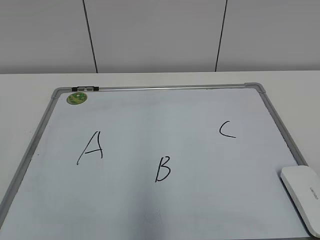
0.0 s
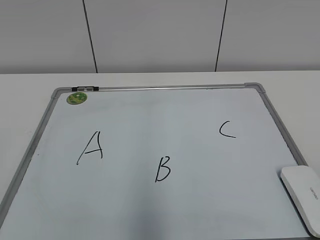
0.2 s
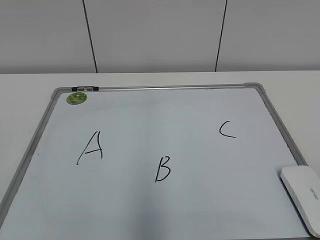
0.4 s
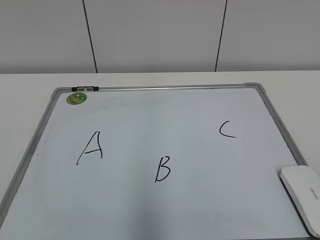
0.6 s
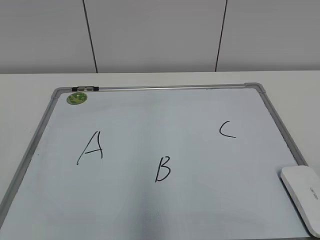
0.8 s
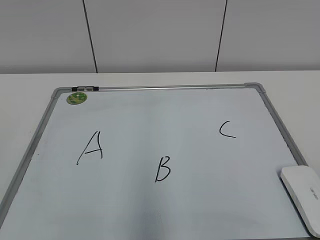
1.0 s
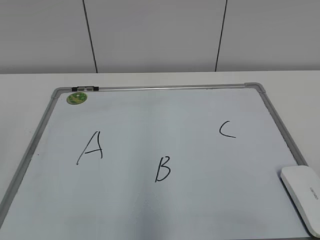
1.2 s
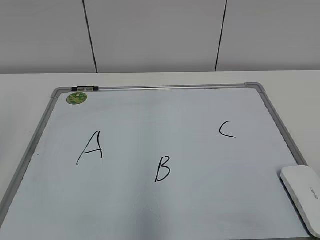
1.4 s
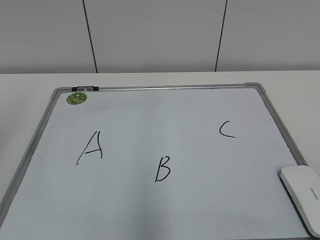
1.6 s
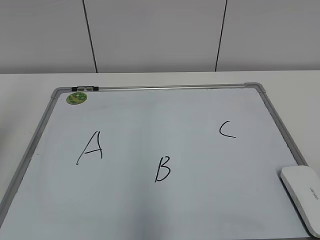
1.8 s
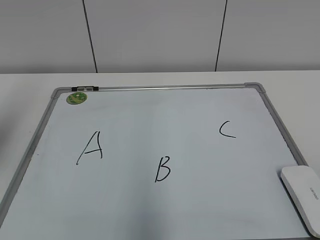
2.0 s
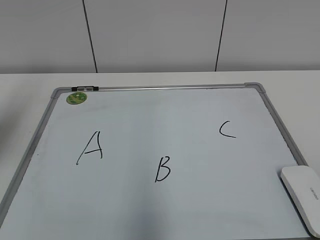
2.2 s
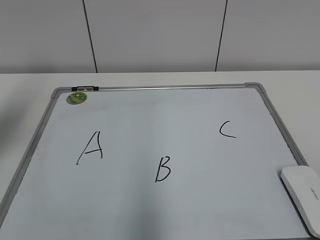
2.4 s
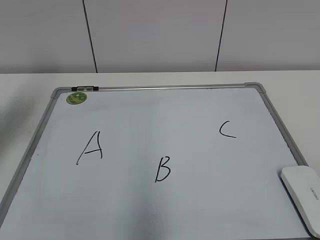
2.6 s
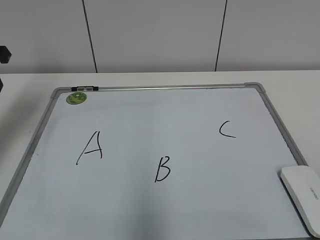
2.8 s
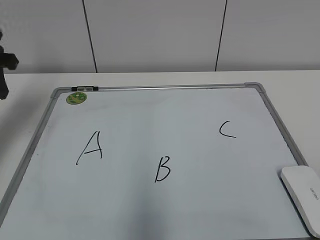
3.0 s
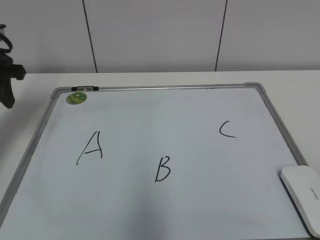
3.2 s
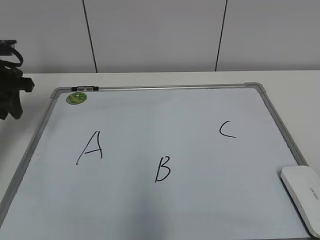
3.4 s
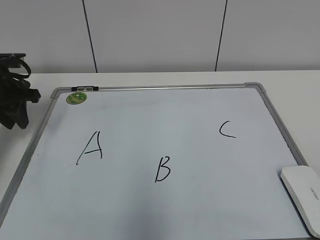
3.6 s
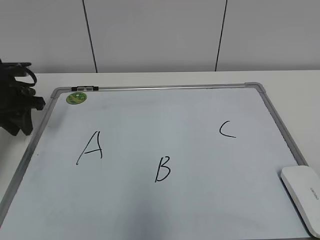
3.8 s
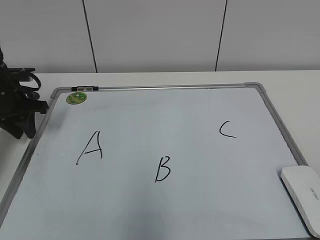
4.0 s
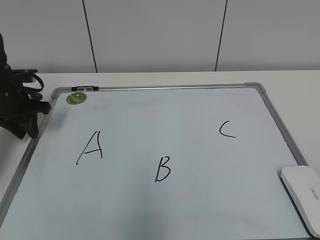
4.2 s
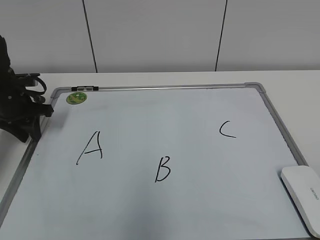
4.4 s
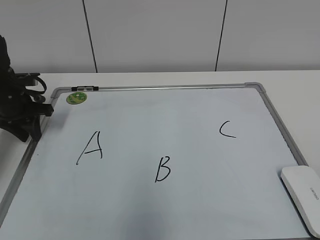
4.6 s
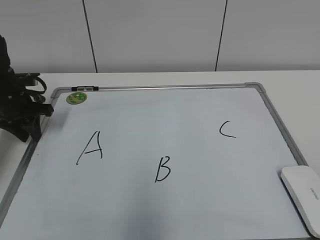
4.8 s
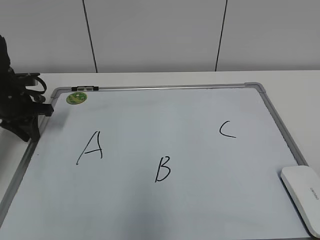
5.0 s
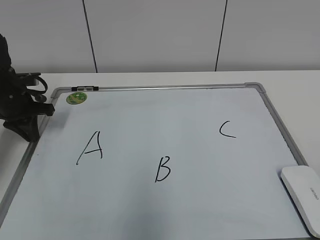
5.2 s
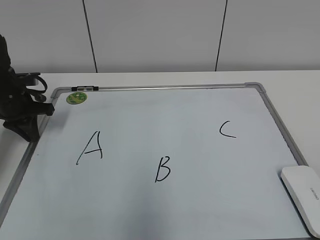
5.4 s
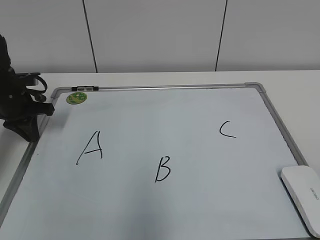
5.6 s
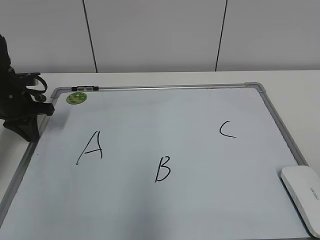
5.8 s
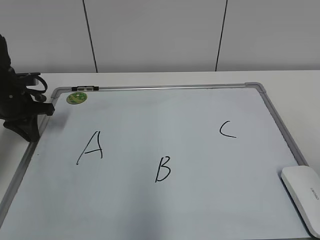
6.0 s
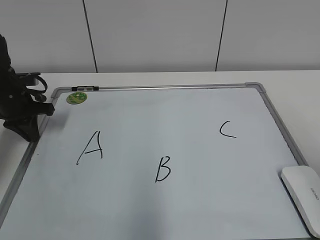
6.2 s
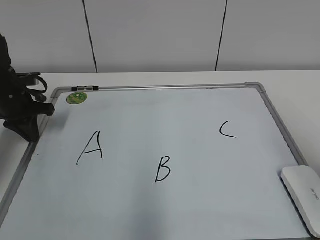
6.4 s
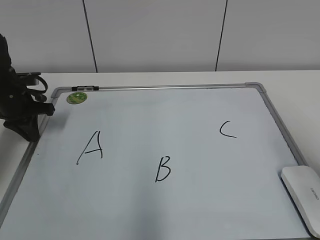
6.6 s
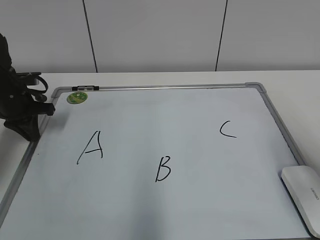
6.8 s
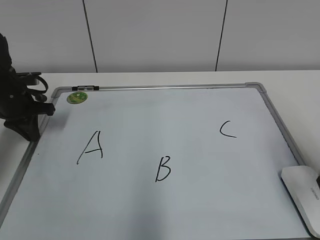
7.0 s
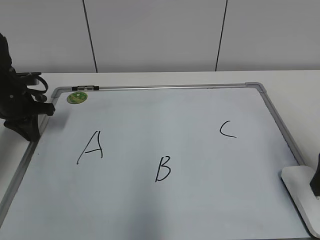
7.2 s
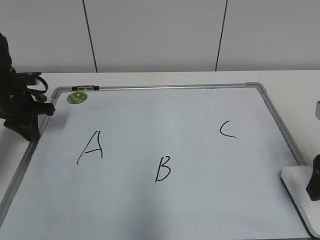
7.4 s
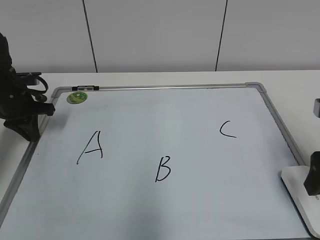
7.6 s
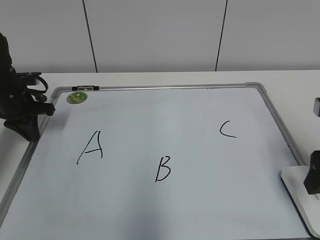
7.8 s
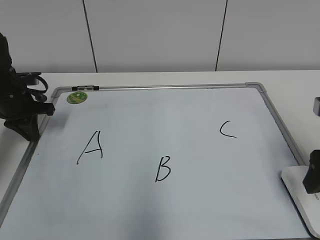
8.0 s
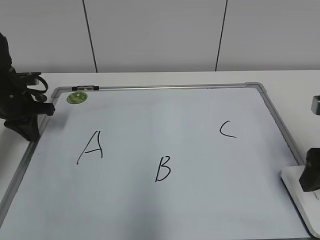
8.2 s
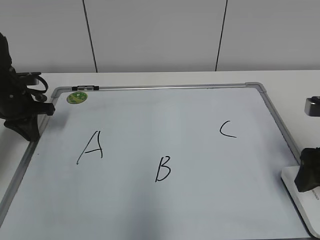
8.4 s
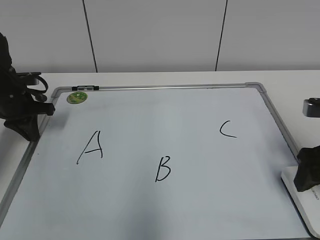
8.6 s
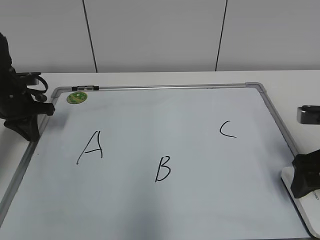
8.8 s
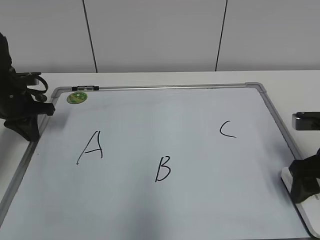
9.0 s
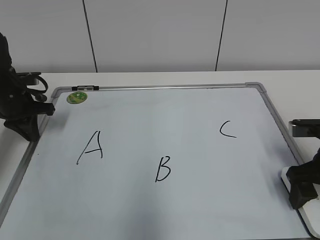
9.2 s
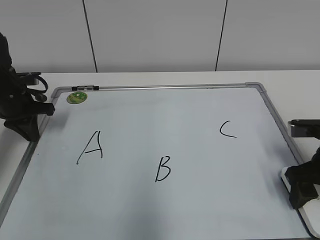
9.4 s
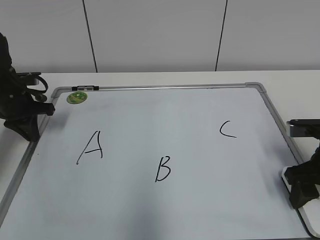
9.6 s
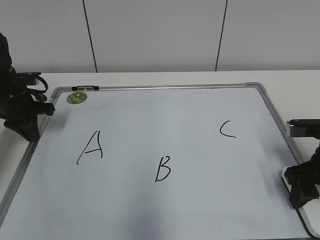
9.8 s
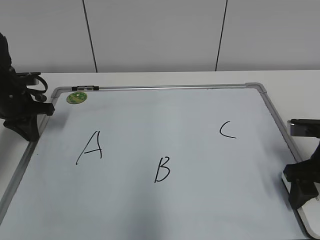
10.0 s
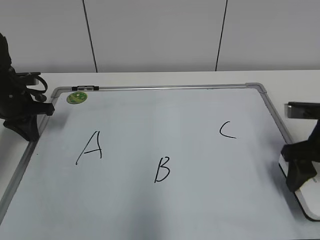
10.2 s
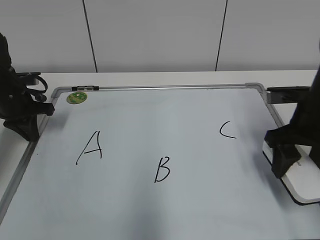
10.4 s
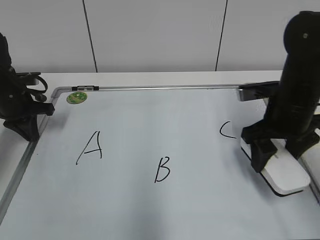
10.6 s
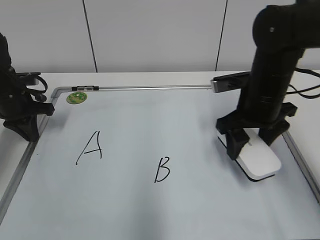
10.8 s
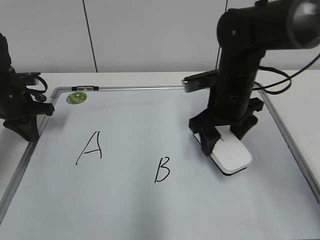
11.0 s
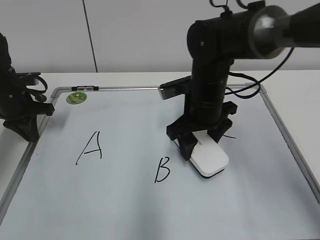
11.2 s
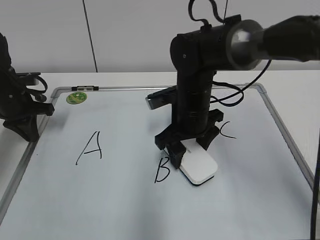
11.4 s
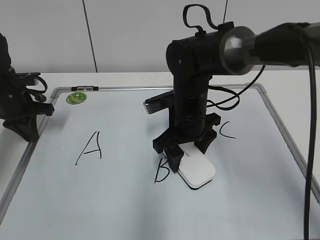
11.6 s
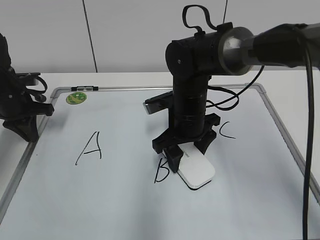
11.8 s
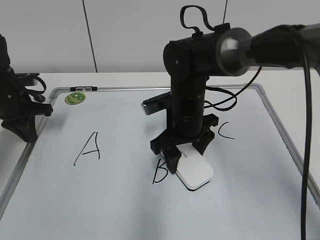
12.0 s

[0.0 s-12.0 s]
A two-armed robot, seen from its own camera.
Task of the whole recording: pick up the eraser on the blackboard and erase the letter "B".
Step, 0.0 to 5.0 s: Hold the drawing board steady with your left hand.
Step, 5.2 to 9.6 s: Grab the eraser with your right hand.
1.6 to 3.0 s: The left gripper shifts approximately 25 cm forward.
3.0 to 4.4 s: The left gripper is displaced downward by approximately 15 cm.
4.4 to 6.0 s: The left gripper closes up.
6.0 to 7.6 s: The right gripper shifts approximately 20 cm forward and downward, and opens its fingers.
7.6 to 9.0 s: The right gripper ends up approximately 5 cm from where it was.
9.0 to 10.4 s: The right gripper shifts by about 5 cm, and closes up.
10.4 to 12.0 s: The right gripper goes approximately 20 cm to the left.

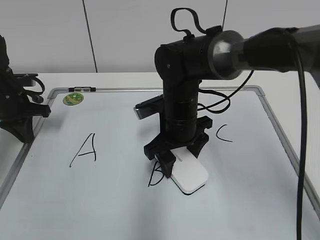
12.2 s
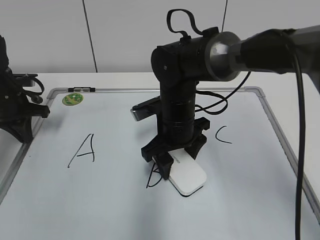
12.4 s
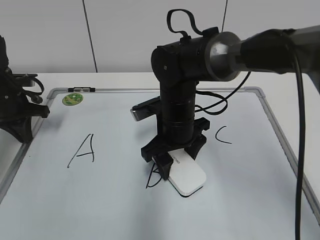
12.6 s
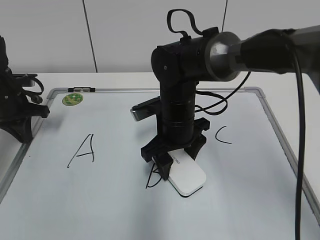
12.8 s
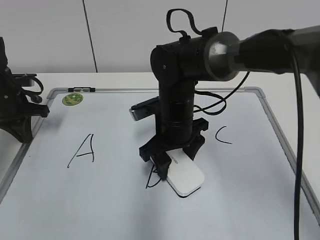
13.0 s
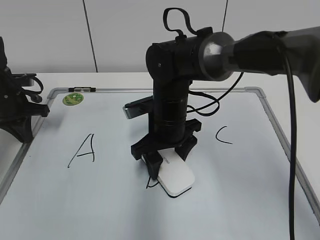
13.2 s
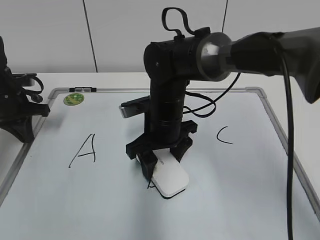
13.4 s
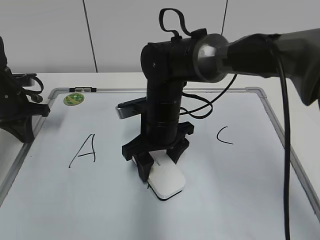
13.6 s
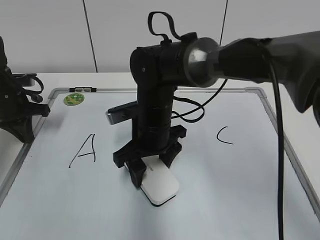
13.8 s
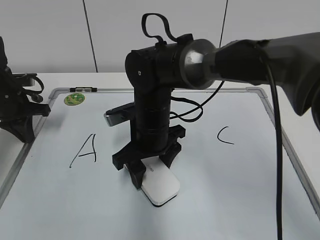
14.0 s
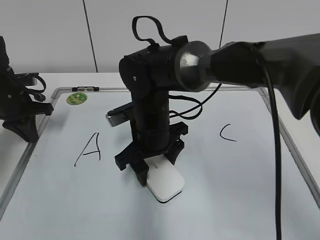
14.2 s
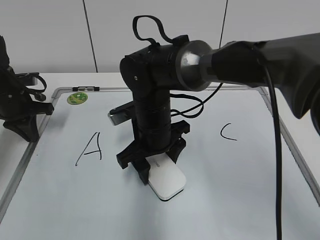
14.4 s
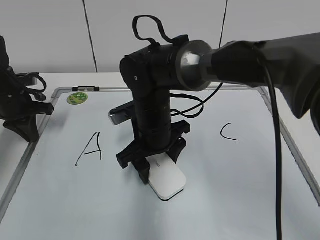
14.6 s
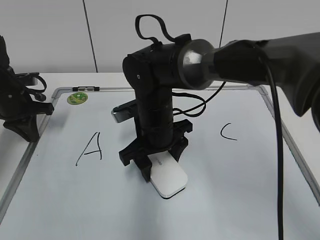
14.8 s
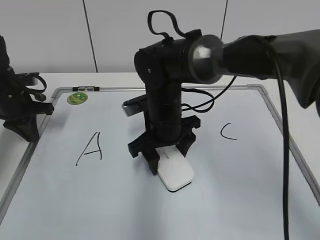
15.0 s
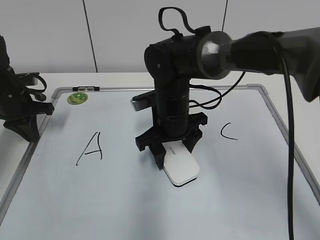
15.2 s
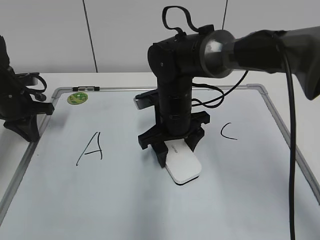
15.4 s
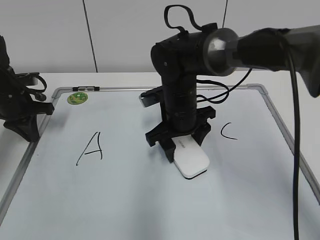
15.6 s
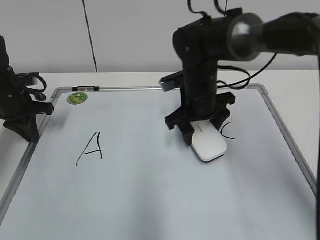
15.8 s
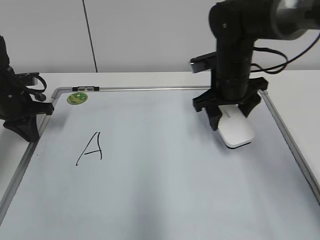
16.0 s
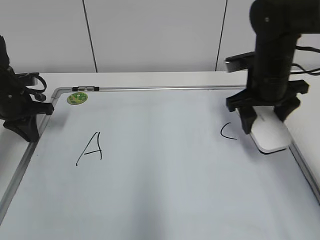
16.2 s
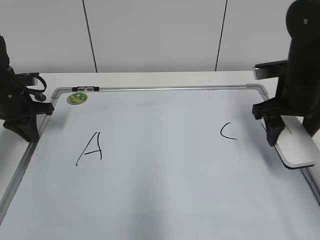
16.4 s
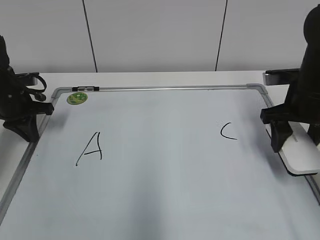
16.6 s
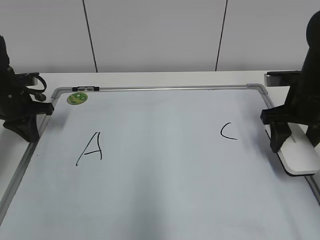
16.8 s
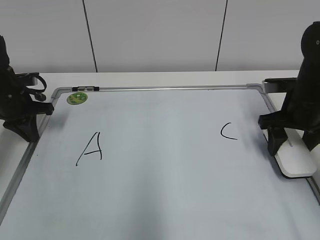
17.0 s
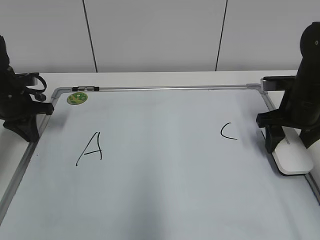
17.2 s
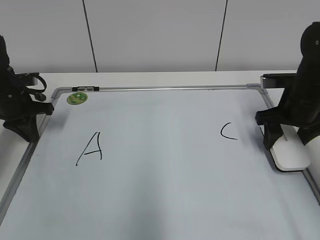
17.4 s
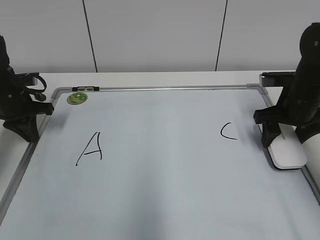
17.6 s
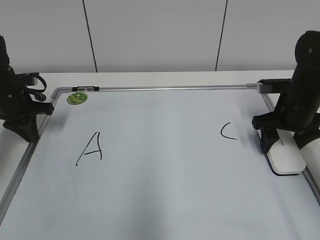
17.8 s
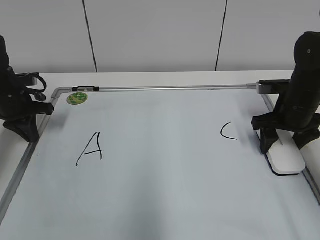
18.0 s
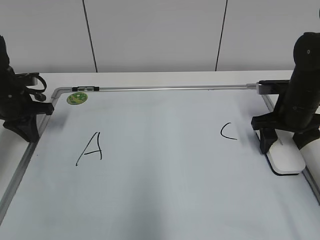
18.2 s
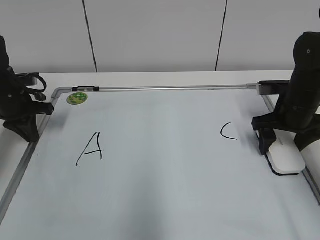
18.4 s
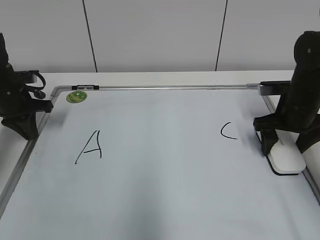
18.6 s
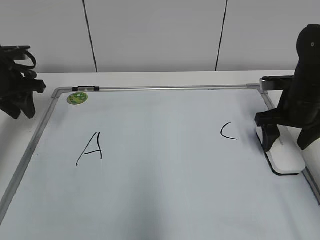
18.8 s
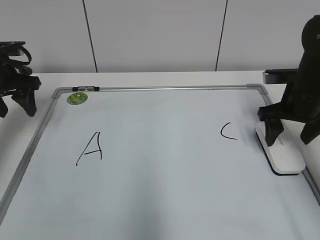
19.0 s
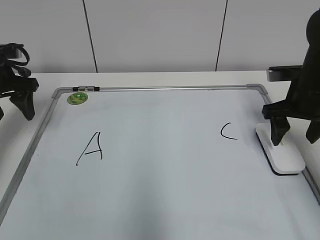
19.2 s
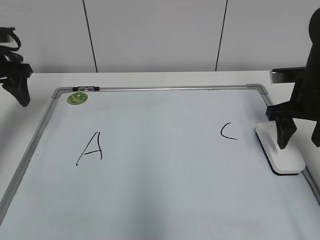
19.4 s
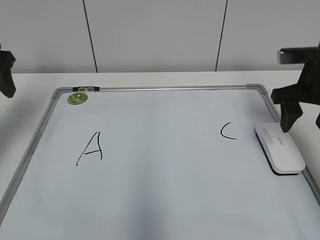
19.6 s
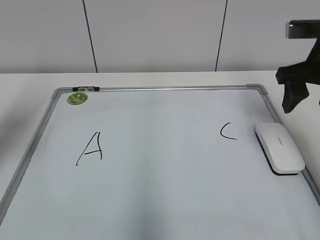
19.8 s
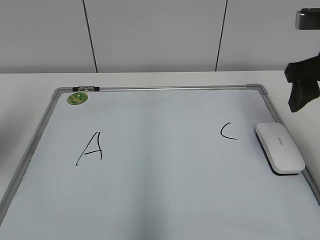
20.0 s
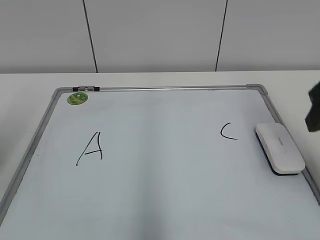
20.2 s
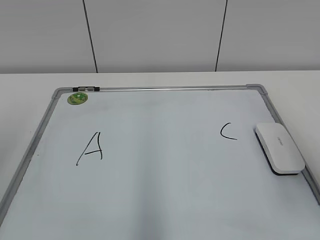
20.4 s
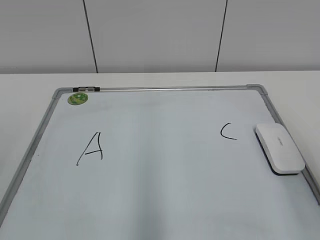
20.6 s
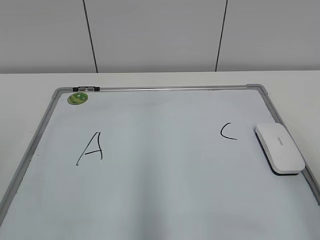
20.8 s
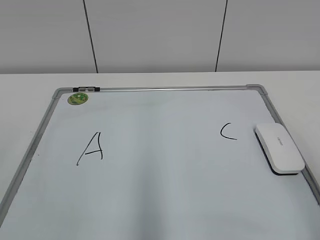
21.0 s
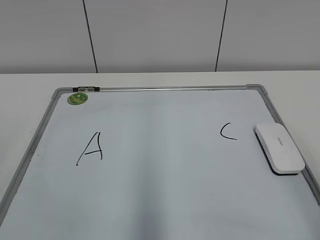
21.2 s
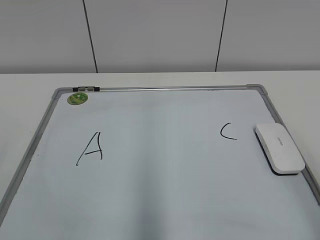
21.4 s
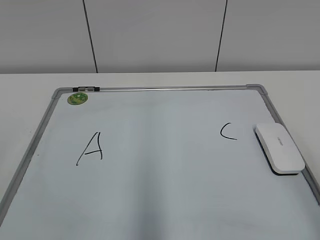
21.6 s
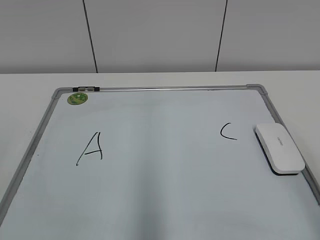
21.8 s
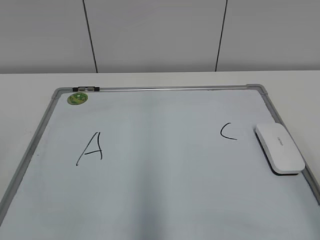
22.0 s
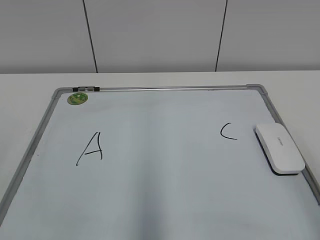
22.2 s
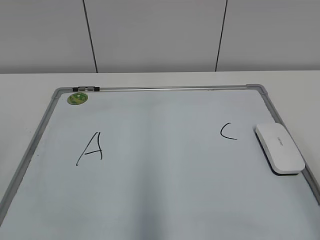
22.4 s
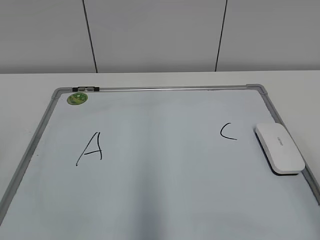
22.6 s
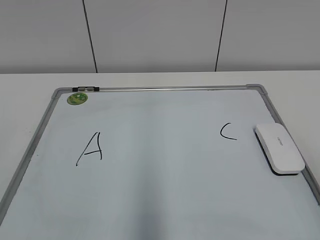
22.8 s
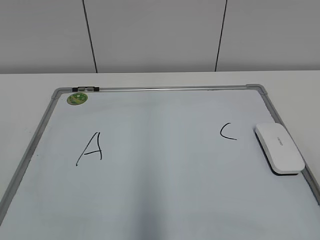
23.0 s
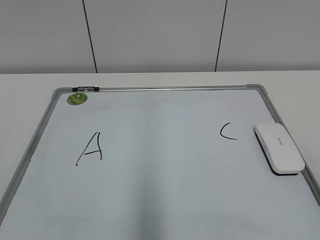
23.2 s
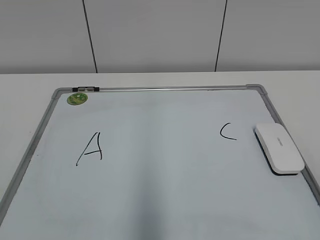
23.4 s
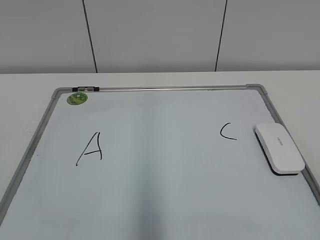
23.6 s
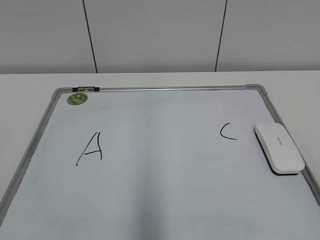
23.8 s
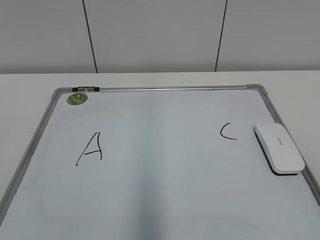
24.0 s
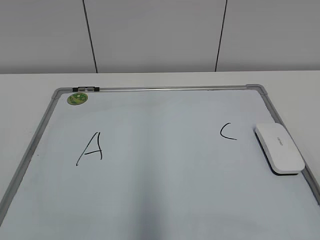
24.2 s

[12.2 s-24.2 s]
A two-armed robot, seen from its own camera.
Task of the whole recording: pick up the eraser on the blackboard and erase the letter "B".
Step, 12.2 to 15.4 s: Erase the letter B with your right hand.
15.2 to 16.6 s: The right gripper goes about 20 cm to the right.
16.6 to 18.2 s: The right gripper ends up about 5 cm from where it was.
18.2 to 19.8 s: The right gripper heads upward, covering approximately 15 cm, and opens, then closes once more. The left gripper goes about 20 cm upward and backward, and opens its fingers.
19.8 to 21.2 s: Both grippers move backward, some 25 cm.
